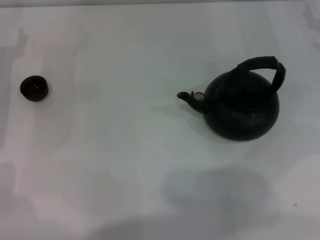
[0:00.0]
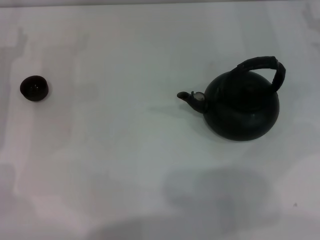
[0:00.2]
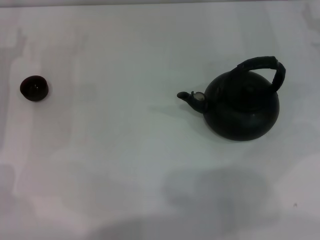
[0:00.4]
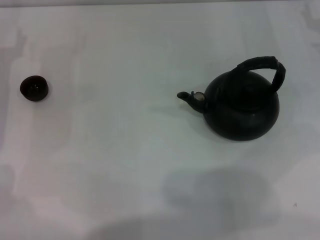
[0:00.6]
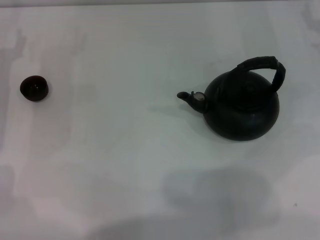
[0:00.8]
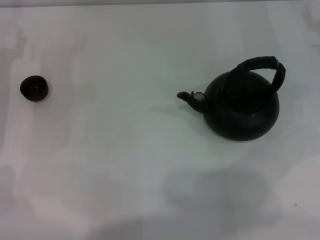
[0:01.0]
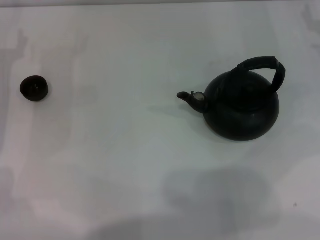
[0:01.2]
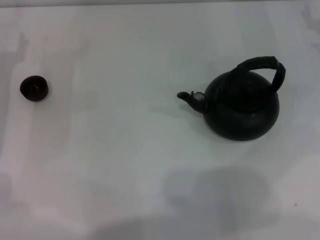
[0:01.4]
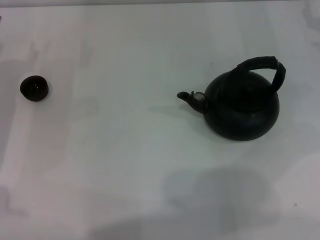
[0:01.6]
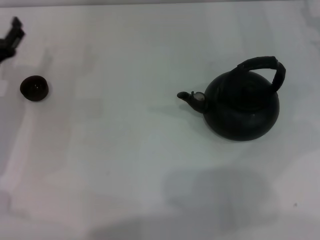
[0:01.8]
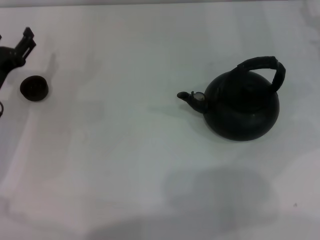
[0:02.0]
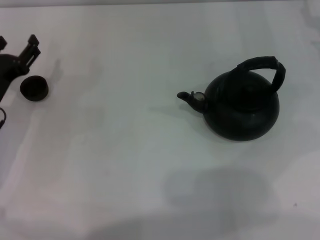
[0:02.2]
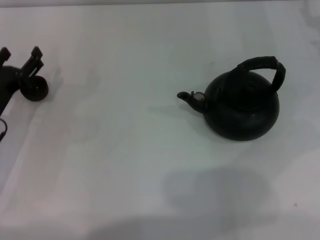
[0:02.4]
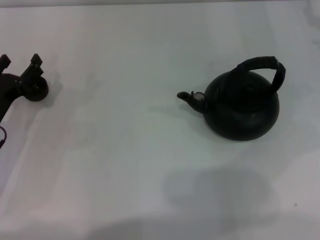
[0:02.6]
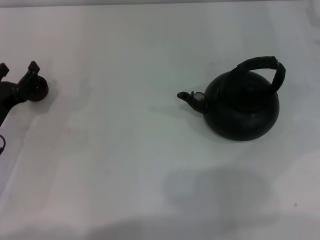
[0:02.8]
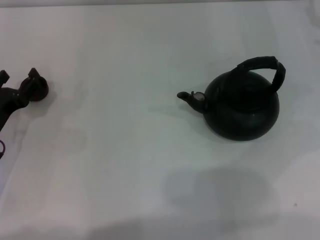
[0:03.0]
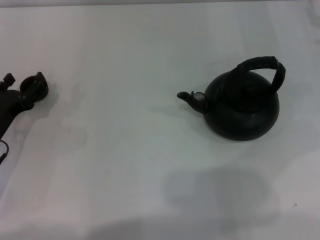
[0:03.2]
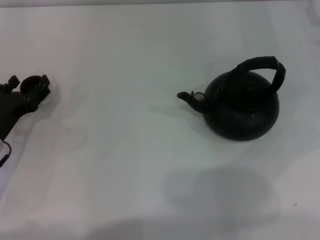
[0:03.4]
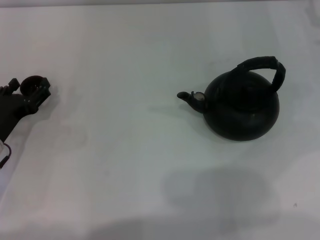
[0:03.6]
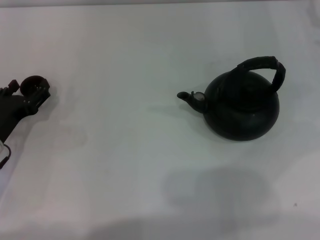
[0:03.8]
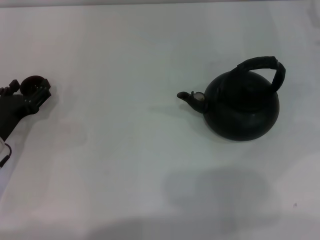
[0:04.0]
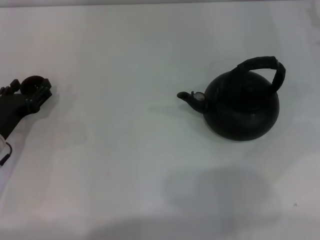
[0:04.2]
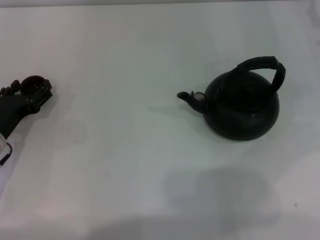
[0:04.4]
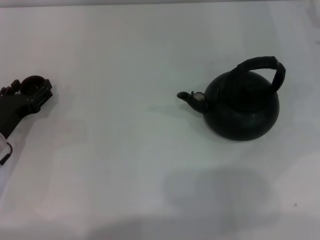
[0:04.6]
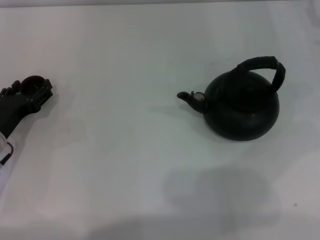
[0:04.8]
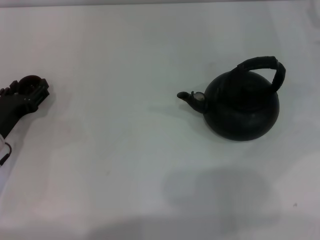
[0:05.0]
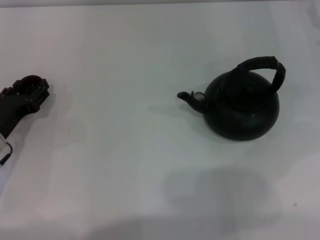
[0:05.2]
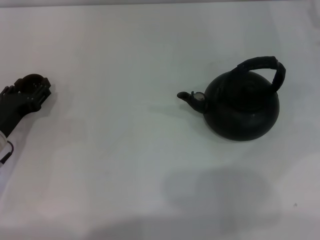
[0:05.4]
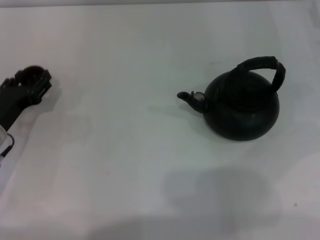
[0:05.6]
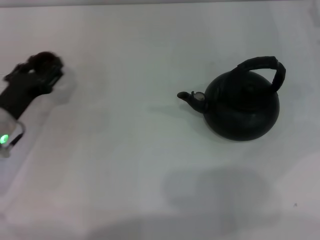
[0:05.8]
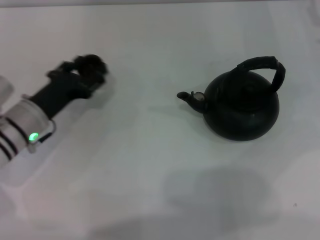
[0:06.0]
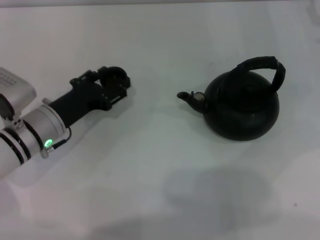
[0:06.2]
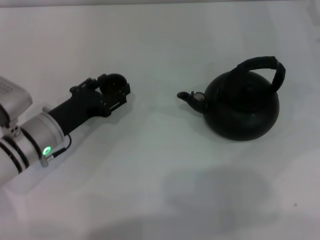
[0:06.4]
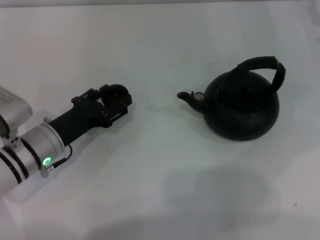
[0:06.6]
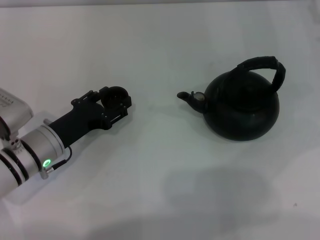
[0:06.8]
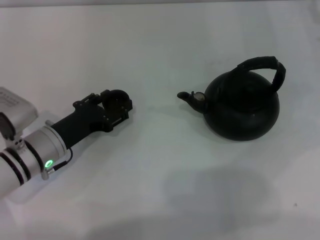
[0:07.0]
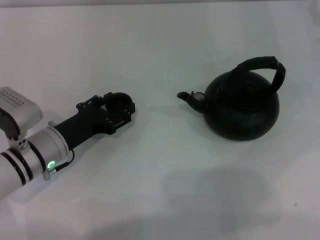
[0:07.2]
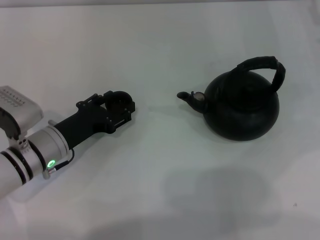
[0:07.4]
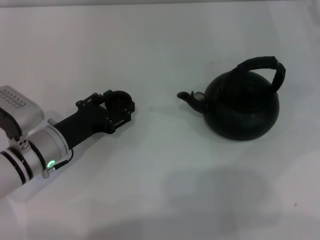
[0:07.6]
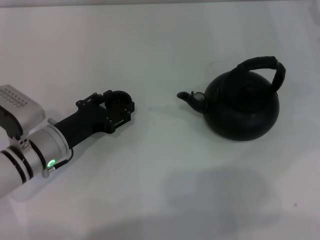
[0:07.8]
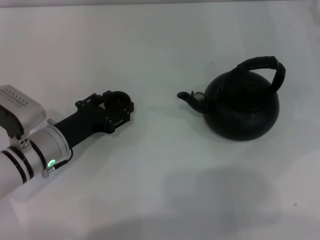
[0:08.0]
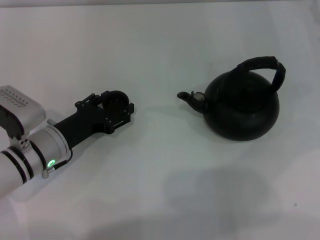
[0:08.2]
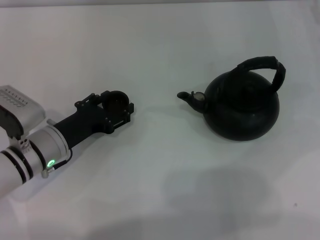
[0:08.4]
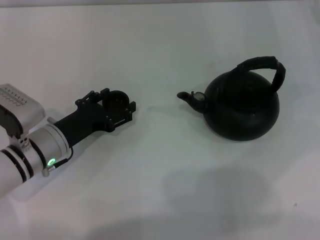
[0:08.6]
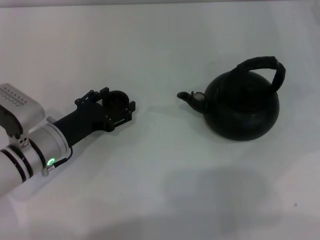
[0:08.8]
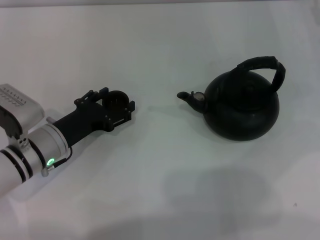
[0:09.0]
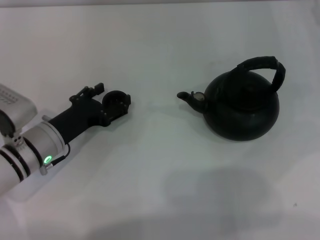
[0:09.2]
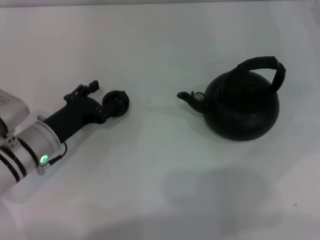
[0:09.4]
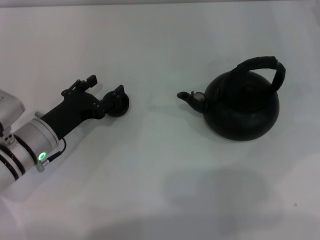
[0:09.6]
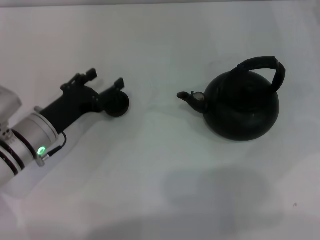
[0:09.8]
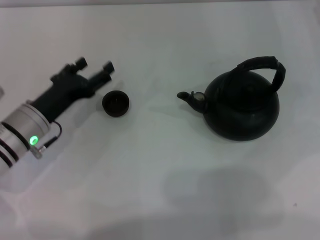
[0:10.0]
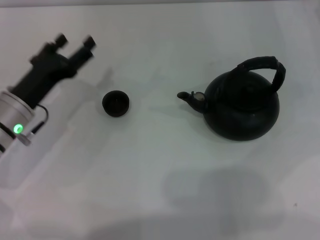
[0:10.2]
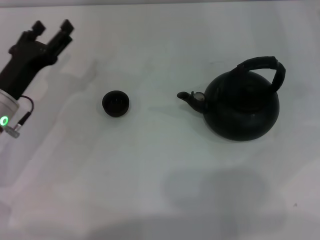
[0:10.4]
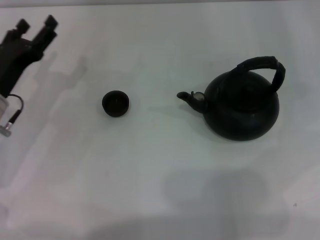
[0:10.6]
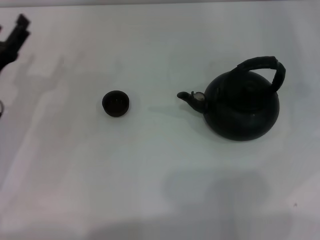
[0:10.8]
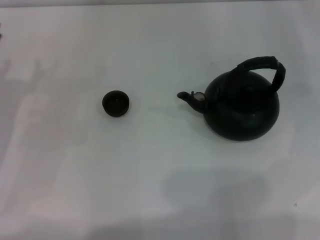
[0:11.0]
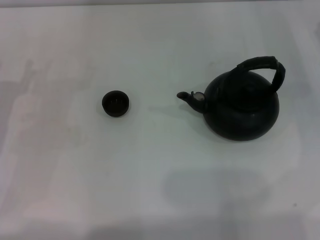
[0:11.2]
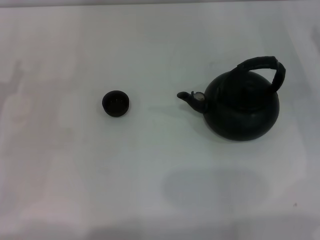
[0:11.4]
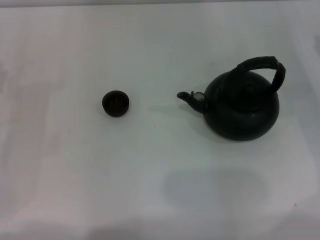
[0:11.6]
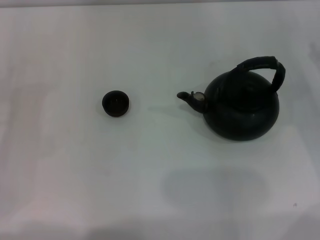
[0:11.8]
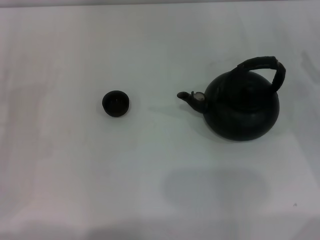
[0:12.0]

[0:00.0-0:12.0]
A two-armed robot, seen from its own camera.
Task of the whole recording: Grasp the handle of the teapot with one hand and pour tea into the teacup.
Step, 0:00.0 to 0:05.6: Pick up the teacup with the left gripper.
Step, 0:05.8 to 0:10.0: Place the teacup in the center of view with the left gripper.
0:01.6 to 0:03.0: The left gripper heads backward, covering some 5 cm.
0:03.0 to 0:04.4: There are only small adjustments of the grippers.
0:04.4 to 0:06.0: The left gripper goes roughly 5 cm to the right, and closes up.
0:06.0 to 0:07.6: The grippers make only small movements.
0:07.6 to 0:09.0: The left gripper opens up.
0:09.0 to 0:10.4: The left gripper ends up approximately 5 cm from where it was.
0:10.4 to 0:12.0: The left gripper travels to the left by some 10 cm.

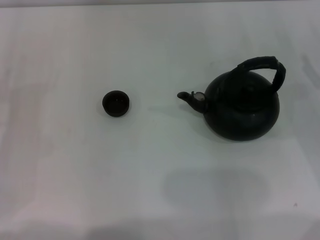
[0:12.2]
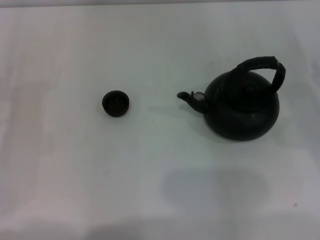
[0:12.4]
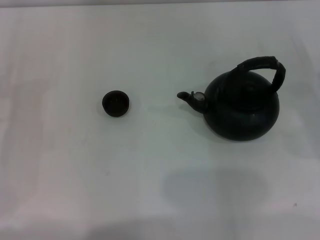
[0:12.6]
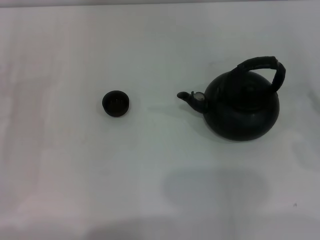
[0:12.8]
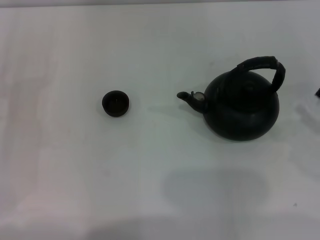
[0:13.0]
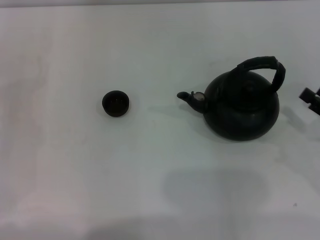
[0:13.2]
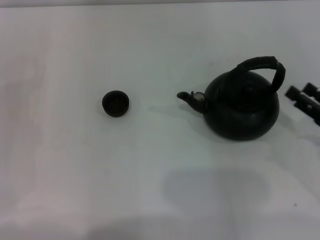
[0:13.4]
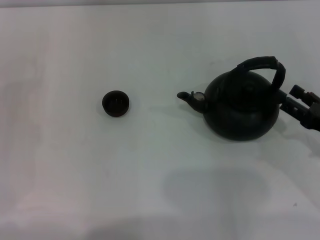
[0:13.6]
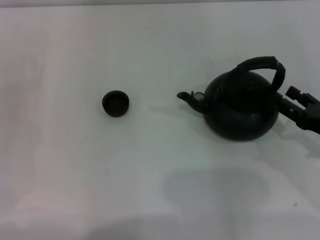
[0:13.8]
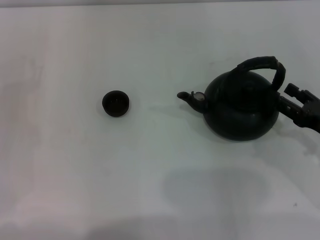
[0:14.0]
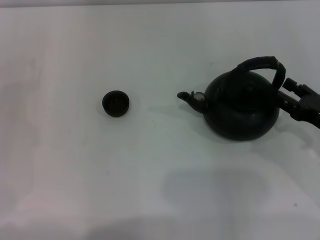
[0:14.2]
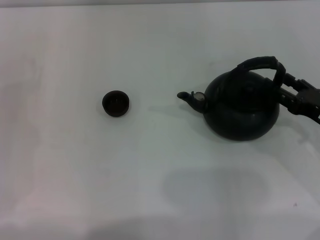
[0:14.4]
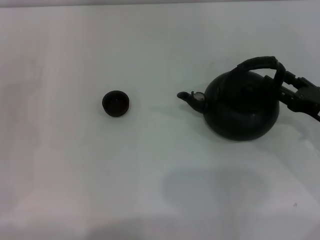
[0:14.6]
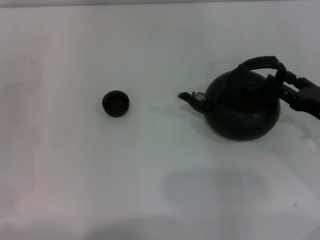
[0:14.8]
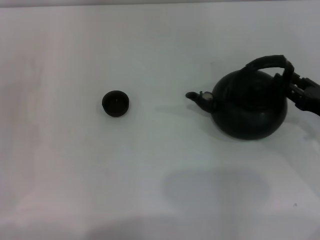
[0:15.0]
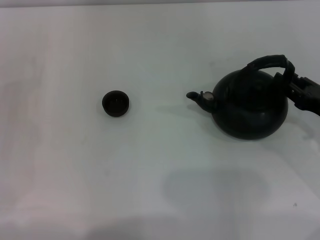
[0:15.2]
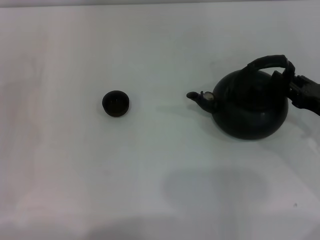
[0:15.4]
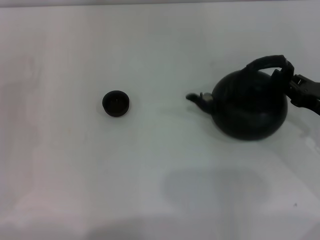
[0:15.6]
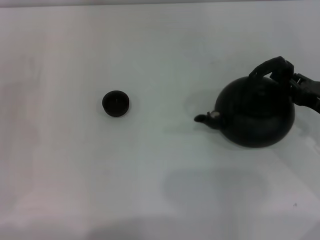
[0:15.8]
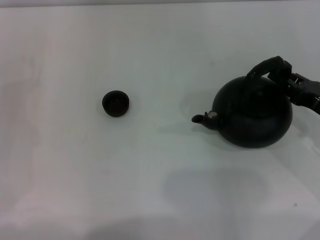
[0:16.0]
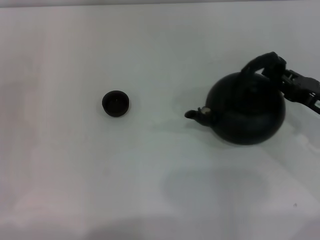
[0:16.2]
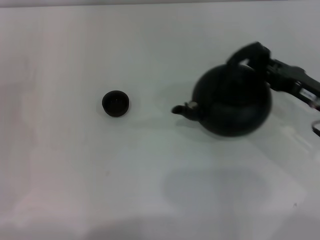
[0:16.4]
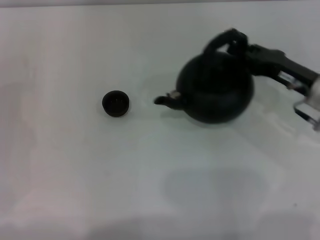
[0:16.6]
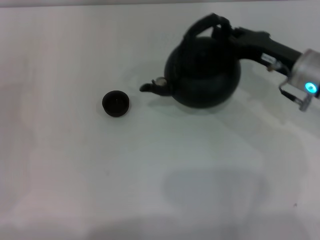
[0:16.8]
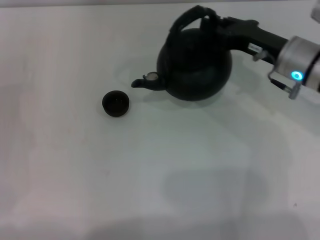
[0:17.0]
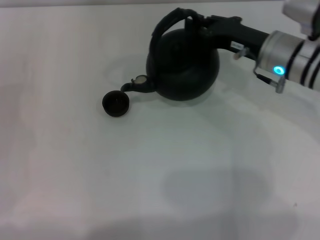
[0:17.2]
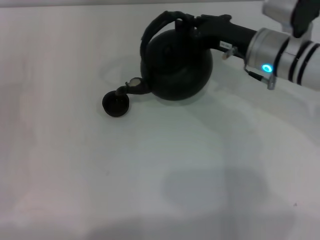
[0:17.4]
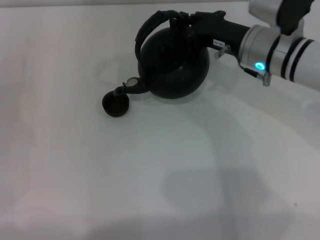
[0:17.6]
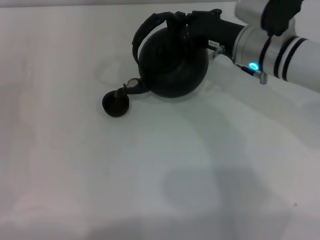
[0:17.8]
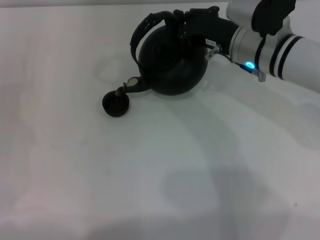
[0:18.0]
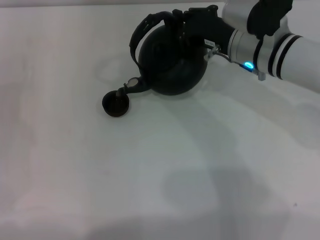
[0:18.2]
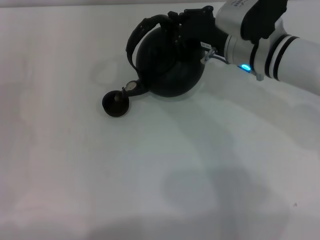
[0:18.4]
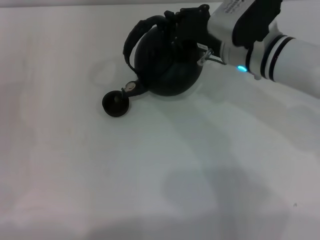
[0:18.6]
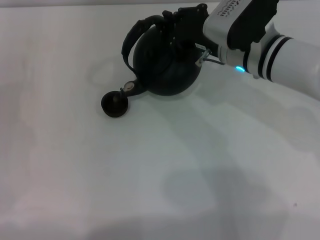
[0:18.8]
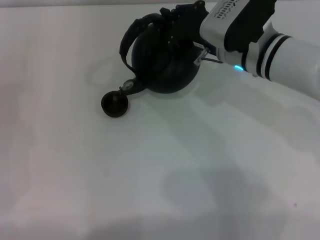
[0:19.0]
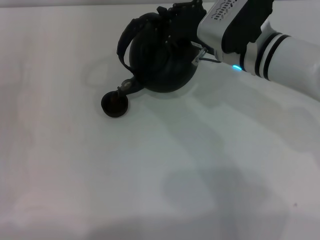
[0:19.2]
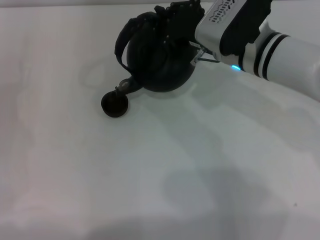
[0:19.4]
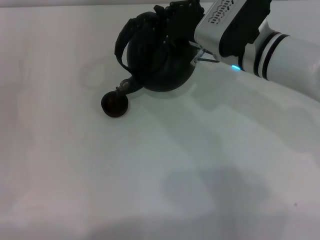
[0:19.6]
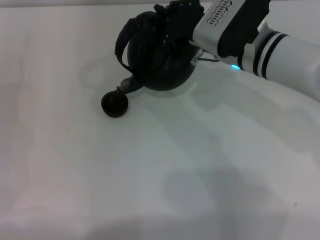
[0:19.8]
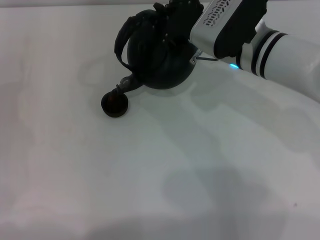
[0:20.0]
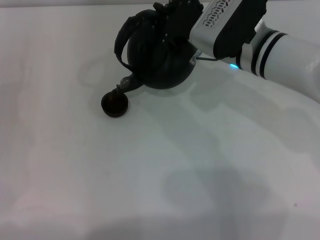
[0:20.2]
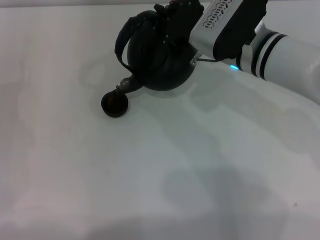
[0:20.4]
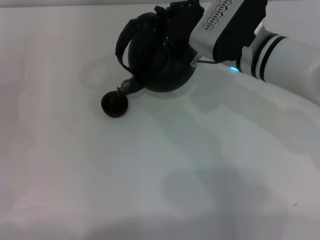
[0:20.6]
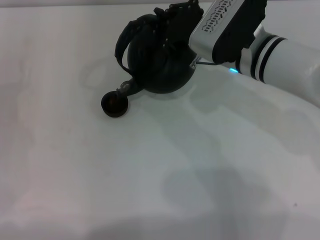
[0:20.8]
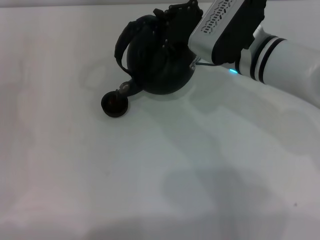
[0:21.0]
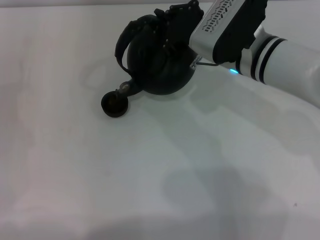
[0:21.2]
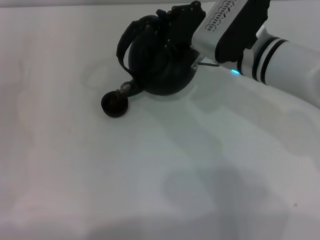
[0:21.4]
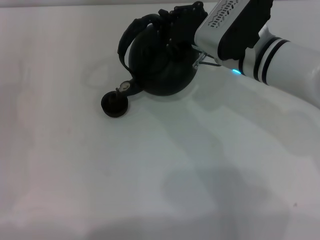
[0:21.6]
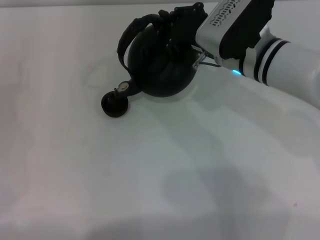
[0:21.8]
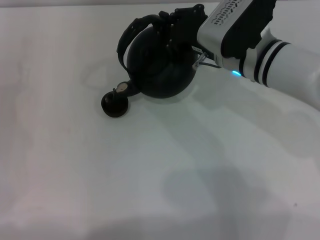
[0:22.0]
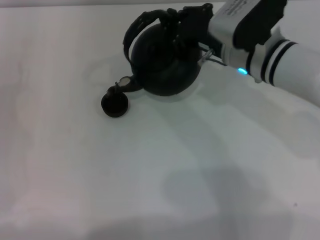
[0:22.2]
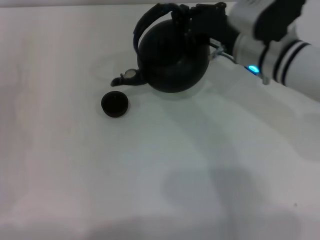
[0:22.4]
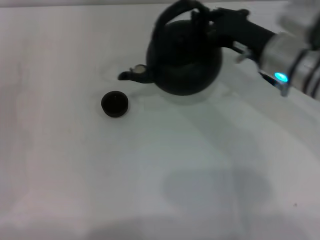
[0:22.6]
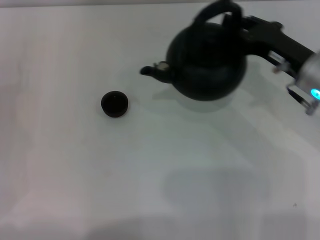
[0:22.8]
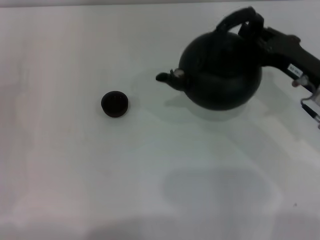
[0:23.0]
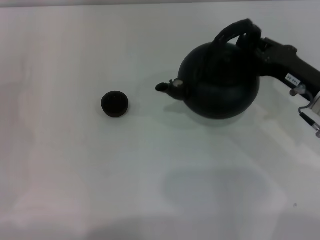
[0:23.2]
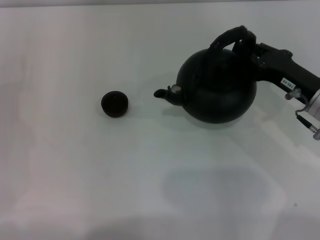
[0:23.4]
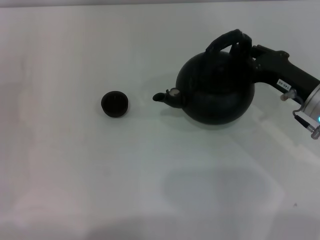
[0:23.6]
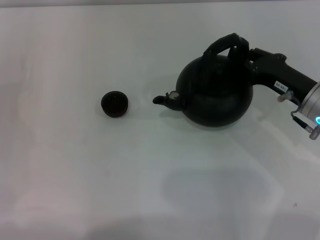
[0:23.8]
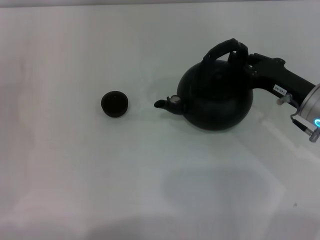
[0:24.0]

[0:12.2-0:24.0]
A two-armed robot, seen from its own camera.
Task of the whole recording: Grasp the handle of the teapot with one hand and pour tea into the teacup.
Step, 0:12.2 to 0:16.6: Pick up the teapot with the right gripper.
Step, 0:17.0 to 0:22.4: Pour tea into the teacup with the right gripper.
0:12.2 to 0:13.6: The right gripper goes about 5 cm backward.
0:13.6 to 0:15.2: The right gripper closes its fingers.
0:15.2 to 0:16.6: The right gripper moves forward and to the left, about 10 cm, and closes up.
0:16.6 to 0:18.2: The right gripper is displaced to the left, forward and upward by about 15 cm.
0:18.2 to 0:19.6: The grippers move only a little.
0:19.6 to 0:21.0: The two grippers keep their place.
0:21.0 to 0:22.6: The right gripper heads to the right, covering some 5 cm.
0:22.6 to 0:24.0: The right gripper heads to the right and downward, covering about 10 cm.
